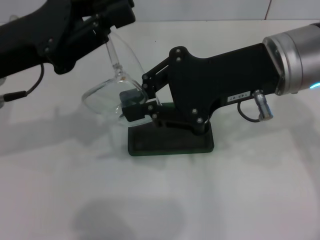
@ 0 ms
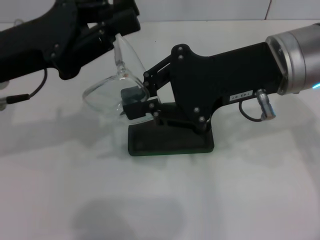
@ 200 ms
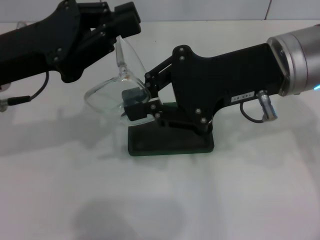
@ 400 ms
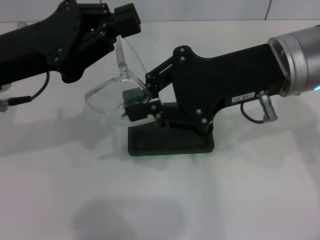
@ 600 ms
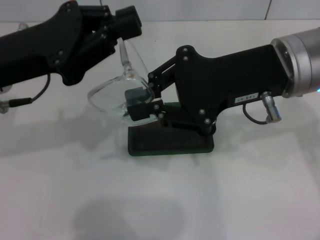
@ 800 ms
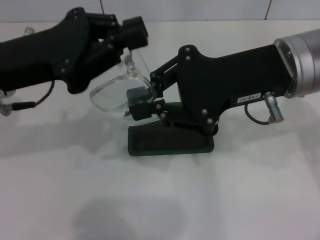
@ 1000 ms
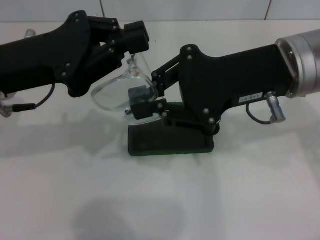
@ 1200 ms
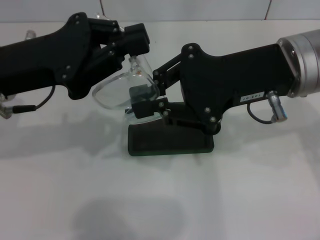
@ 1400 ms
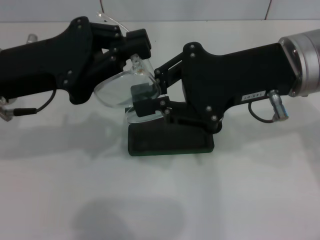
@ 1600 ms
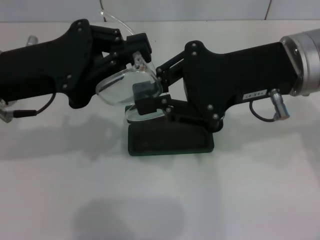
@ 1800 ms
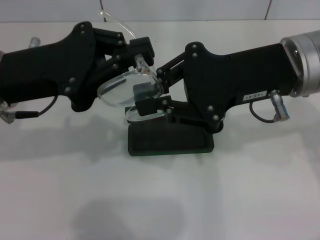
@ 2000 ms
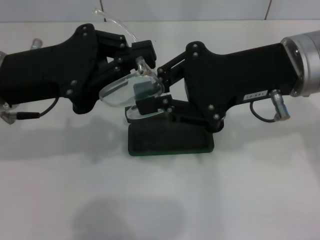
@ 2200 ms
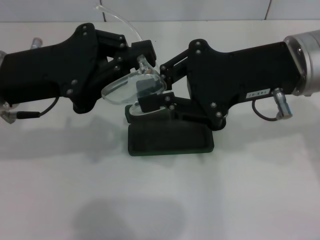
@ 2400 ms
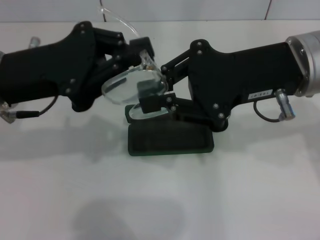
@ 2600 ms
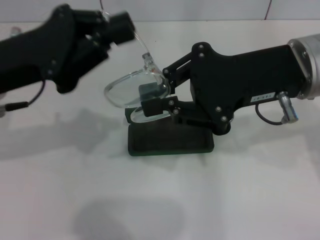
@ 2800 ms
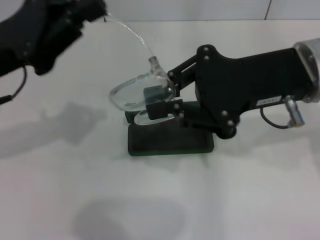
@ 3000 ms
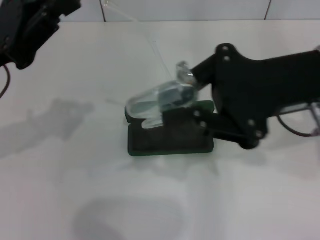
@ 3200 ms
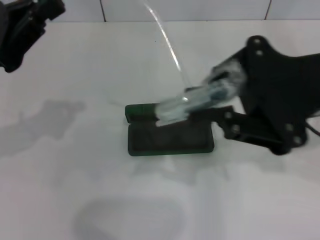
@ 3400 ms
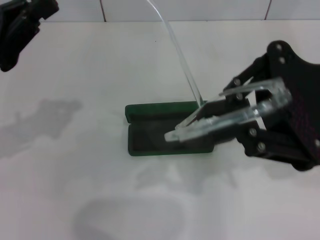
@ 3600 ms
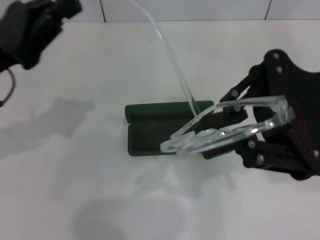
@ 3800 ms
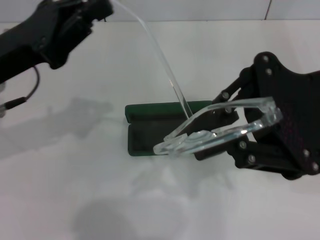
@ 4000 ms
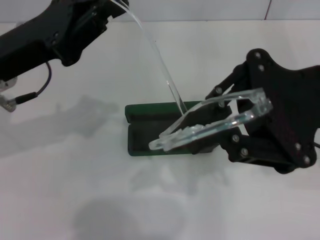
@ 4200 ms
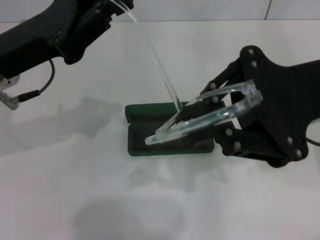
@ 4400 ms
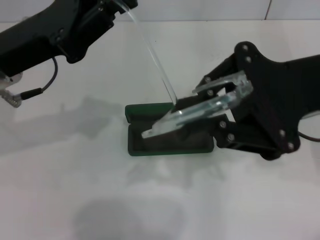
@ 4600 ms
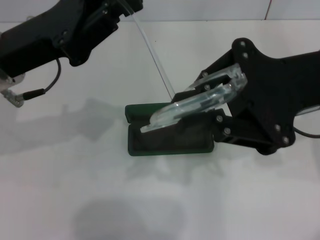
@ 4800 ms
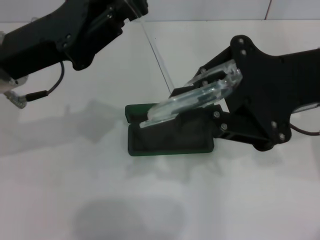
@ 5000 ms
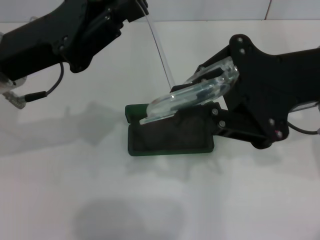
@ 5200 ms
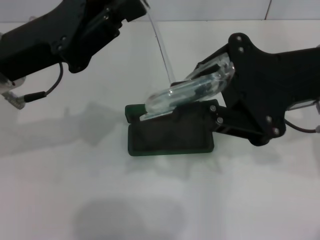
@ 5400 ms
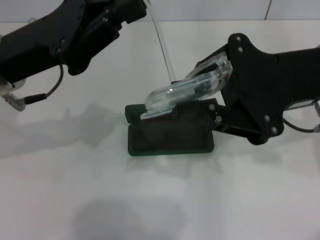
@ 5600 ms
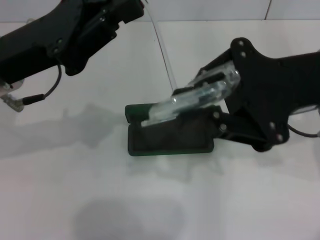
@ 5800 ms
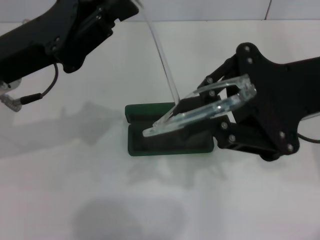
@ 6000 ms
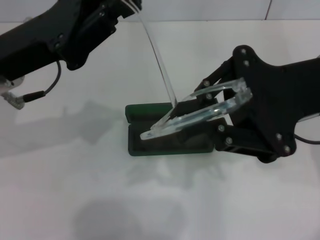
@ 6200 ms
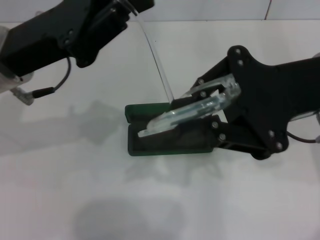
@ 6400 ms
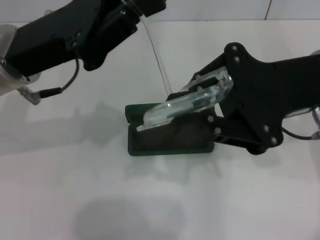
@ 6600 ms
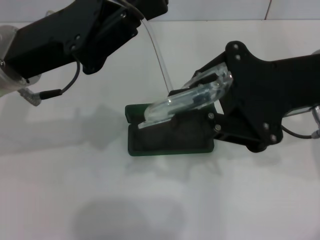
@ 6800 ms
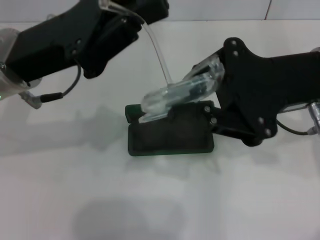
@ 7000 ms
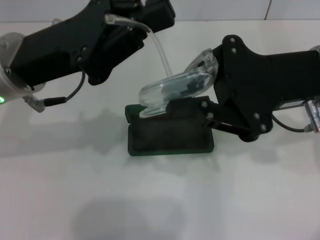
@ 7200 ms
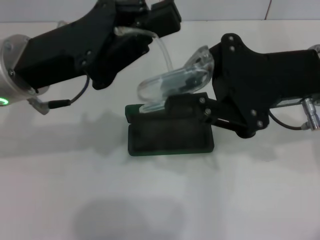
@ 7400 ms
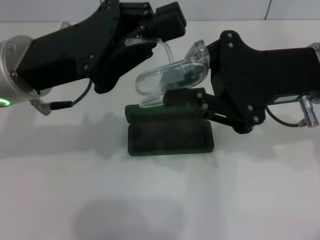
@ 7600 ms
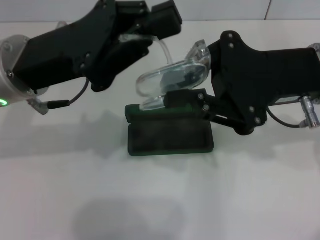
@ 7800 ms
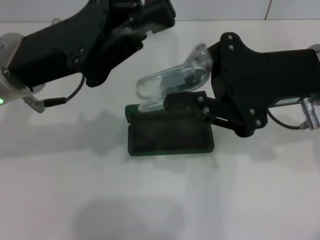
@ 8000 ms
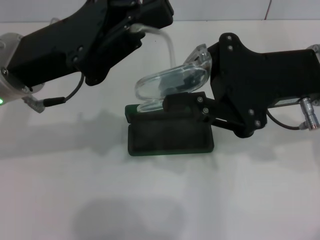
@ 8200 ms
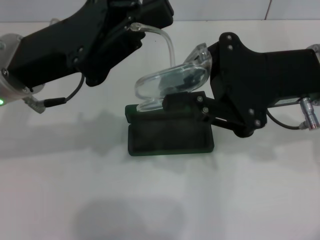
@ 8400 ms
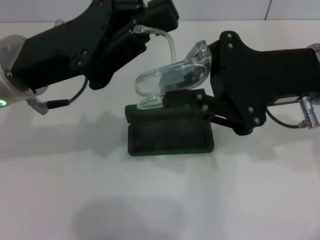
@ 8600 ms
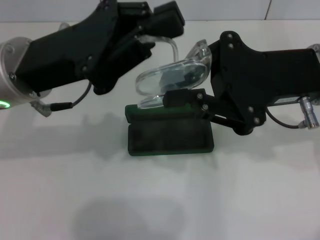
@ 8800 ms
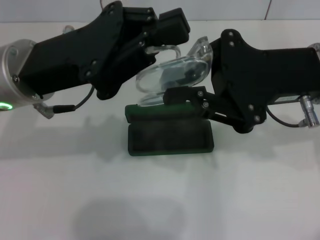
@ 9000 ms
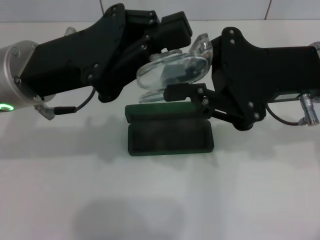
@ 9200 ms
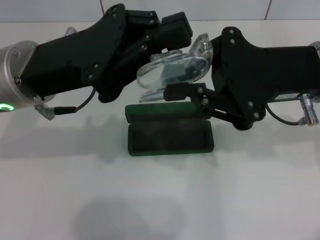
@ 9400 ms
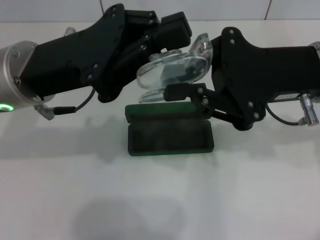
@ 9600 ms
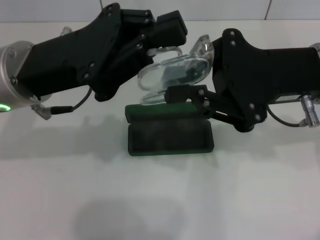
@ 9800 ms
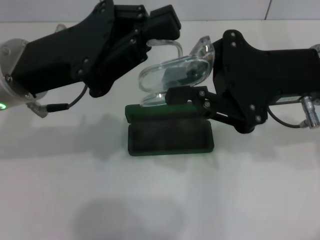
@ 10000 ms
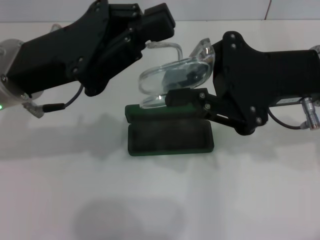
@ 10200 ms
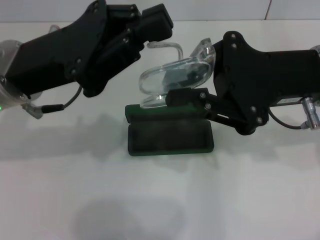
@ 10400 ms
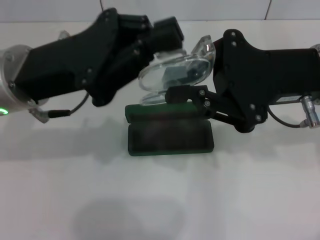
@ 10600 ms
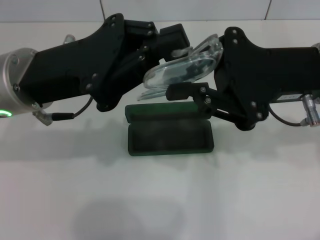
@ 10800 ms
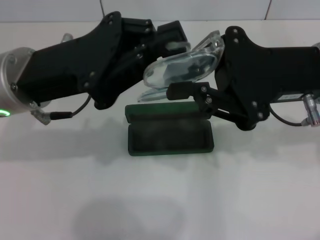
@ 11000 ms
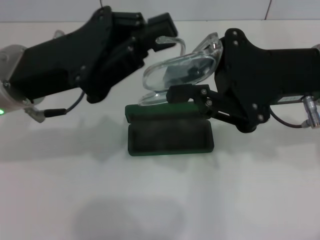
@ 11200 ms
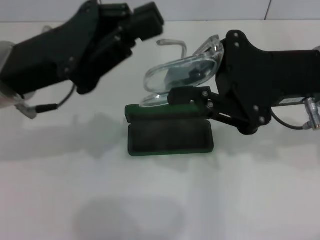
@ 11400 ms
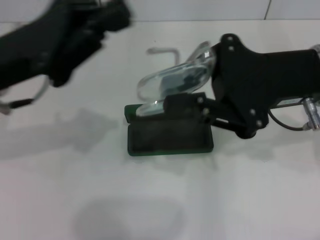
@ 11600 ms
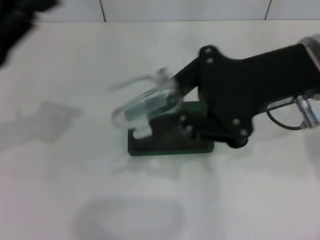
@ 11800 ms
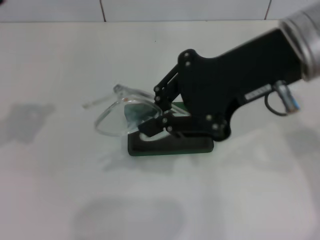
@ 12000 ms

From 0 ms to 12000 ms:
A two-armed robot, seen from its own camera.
Step, from 0 ms to 9800 ms: Fold the frame with your left hand.
From 4400 ms to 6000 ms: The grippers make only small movements.
From 7600 ms to 10400 ms: Both grippers stay put.
From 10400 ms to 12000 ms: The left gripper moves to the left, some 15 cm; the right gripper heads upward, covering roughly 10 cm.

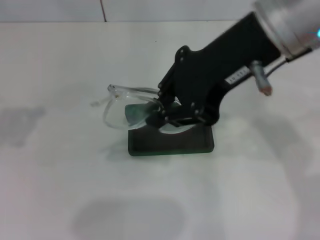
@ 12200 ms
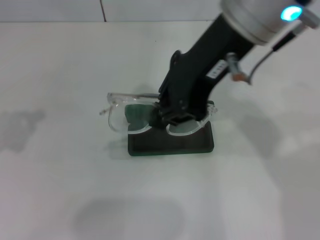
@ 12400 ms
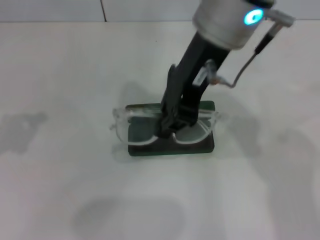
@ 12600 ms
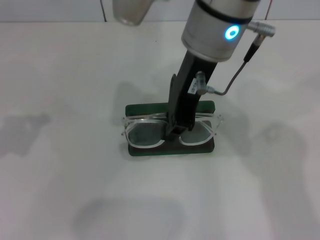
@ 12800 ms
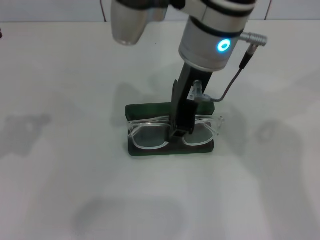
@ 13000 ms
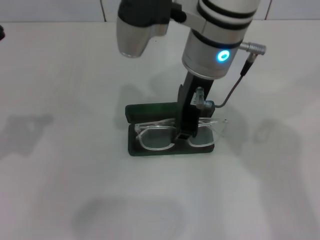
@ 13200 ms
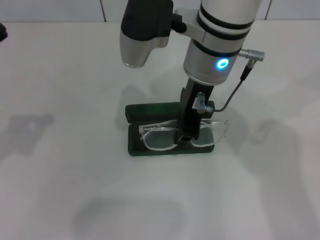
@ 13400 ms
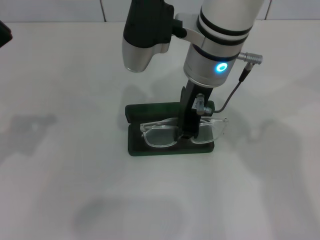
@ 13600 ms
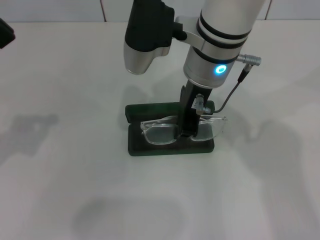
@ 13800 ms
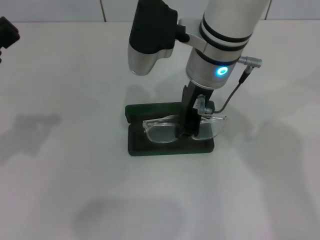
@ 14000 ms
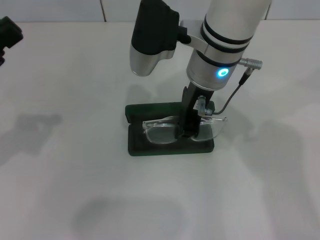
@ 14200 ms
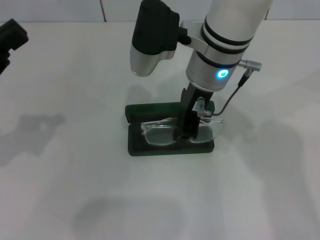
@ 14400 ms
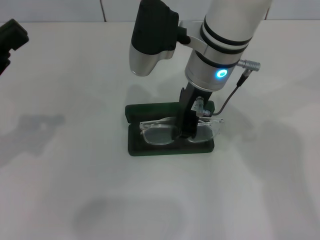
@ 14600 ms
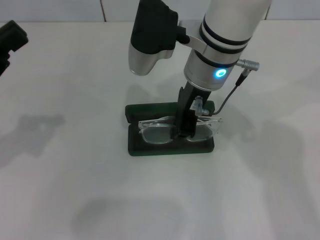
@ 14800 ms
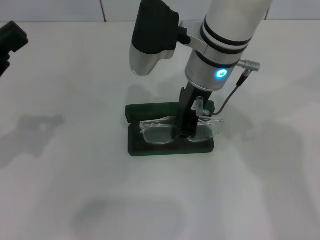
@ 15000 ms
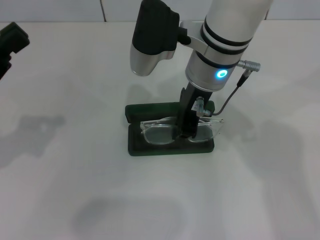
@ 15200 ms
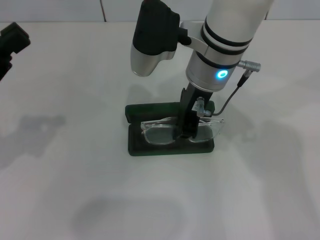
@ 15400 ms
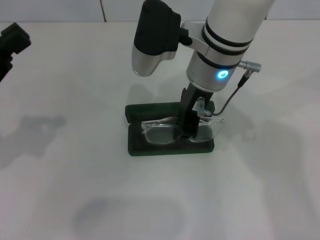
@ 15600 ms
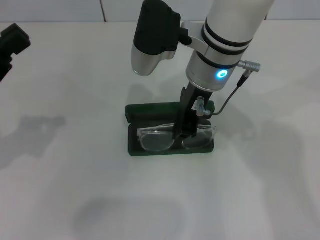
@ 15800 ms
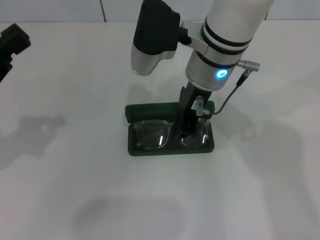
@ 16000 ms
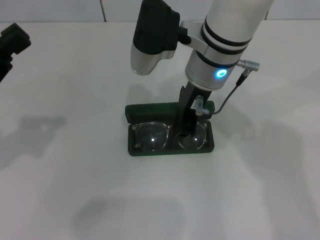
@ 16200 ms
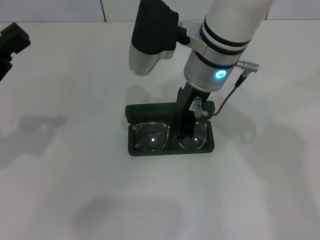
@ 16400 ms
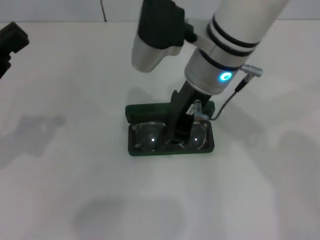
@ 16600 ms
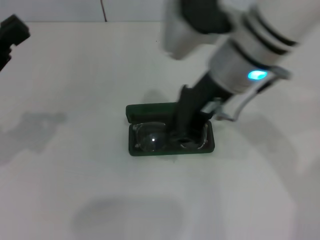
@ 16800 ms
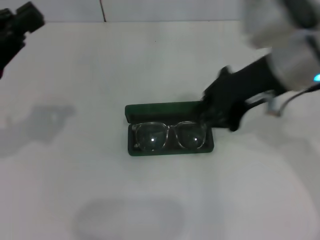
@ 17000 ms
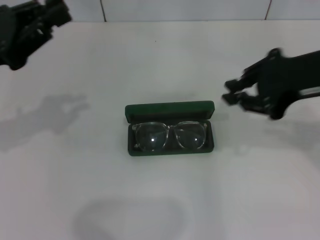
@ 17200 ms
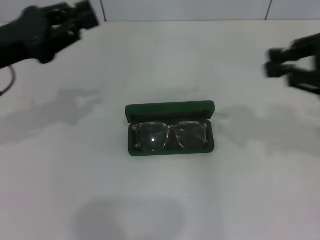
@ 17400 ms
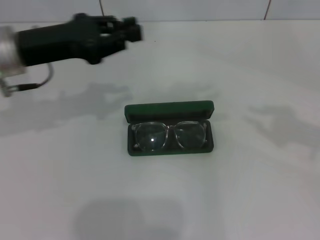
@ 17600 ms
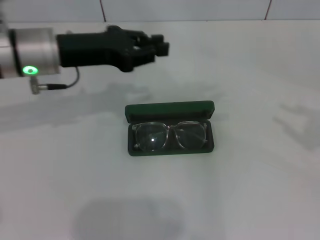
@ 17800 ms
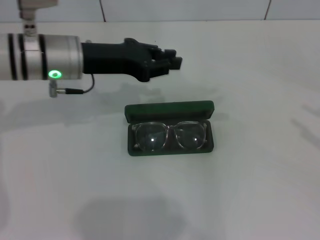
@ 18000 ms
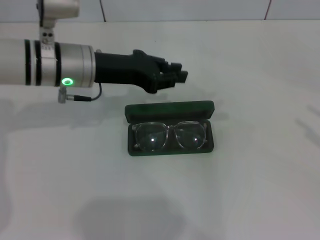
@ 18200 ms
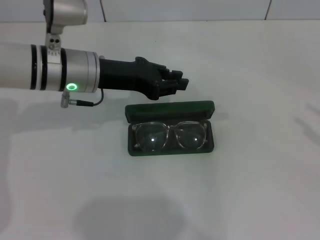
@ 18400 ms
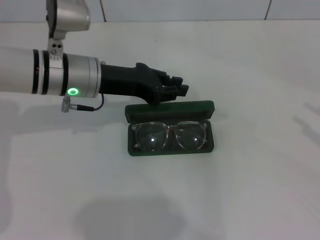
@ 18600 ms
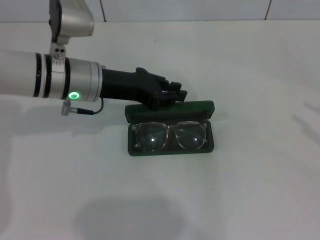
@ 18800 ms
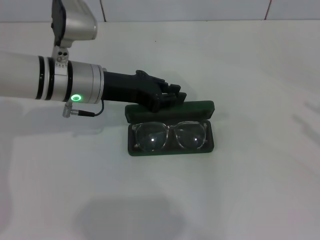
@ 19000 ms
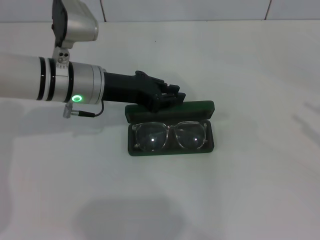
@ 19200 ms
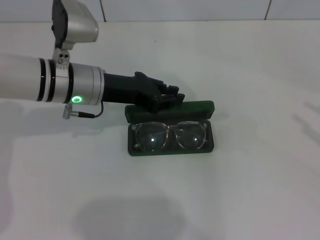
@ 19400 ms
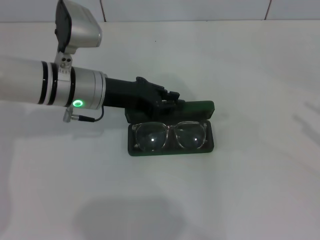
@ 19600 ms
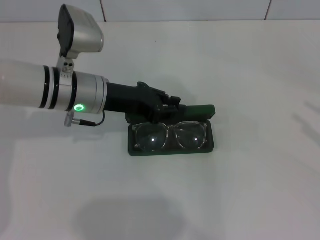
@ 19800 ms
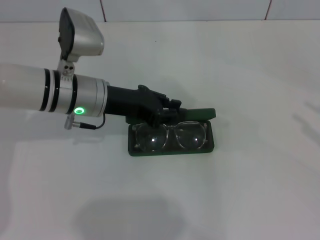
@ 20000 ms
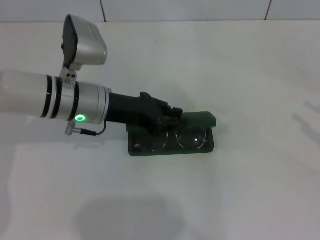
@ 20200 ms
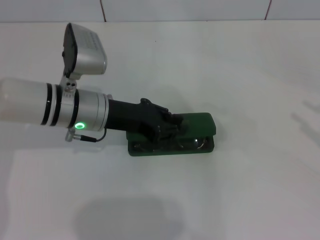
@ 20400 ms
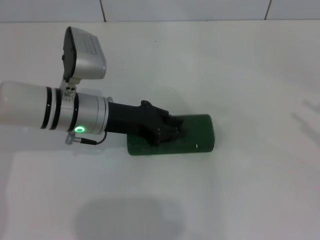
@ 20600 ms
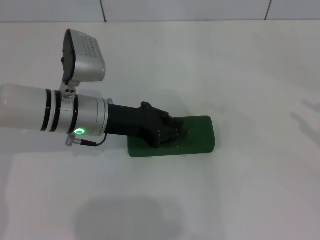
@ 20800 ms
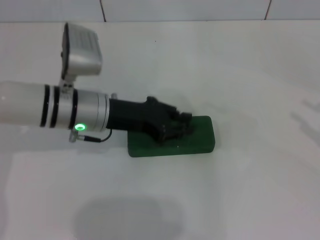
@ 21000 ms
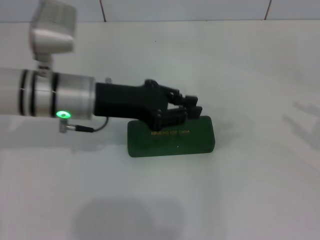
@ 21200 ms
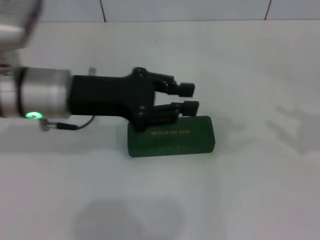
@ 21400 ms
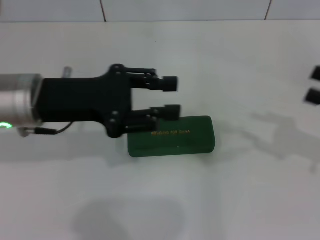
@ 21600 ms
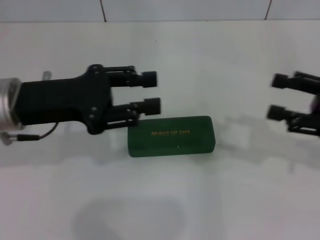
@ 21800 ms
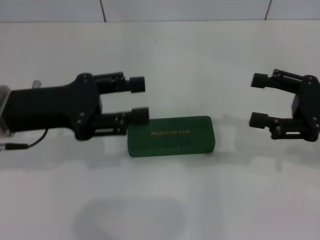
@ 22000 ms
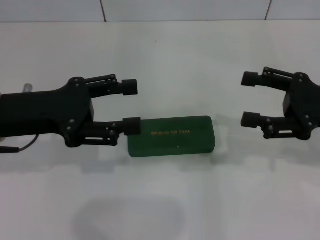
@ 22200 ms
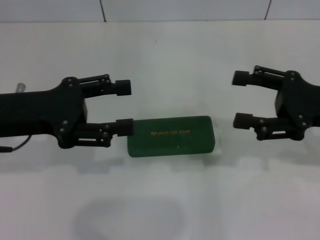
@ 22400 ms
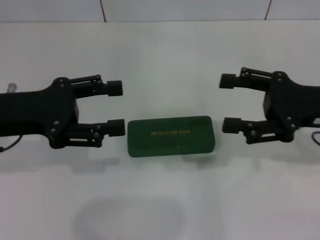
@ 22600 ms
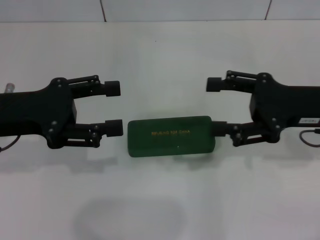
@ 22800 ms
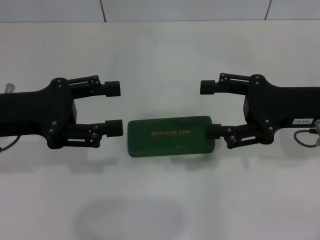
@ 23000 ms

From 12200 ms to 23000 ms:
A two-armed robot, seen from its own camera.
Step, from 12200 ms to 16000 ms: Put the glasses into the case with your right hand.
Step, from 16200 ms to 20600 ms: Close the glasses case with your left hand.
From 12200 ms to 13800 ms: The right gripper heads downward, to the left and forward, covering approximately 15 cm.
From 13800 ms to 15200 ms: Neither gripper changes place.
From 15200 ms to 16800 ms: The right gripper moves about 5 cm.
From 16800 ms to 18400 ms: The right gripper goes some 35 cm to the right, and opens. The left gripper is displaced to the right and forward by some 20 cm.
From 18400 ms to 20000 ms: The grippers make only small movements.
From 20000 ms to 21400 ms: The left gripper heads upward, covering roughly 5 cm.
From 21400 ms to 23000 ms: The right gripper heads to the left and forward, covering about 15 cm, and opens. The left gripper moves to the left, approximately 10 cm, and opens.
